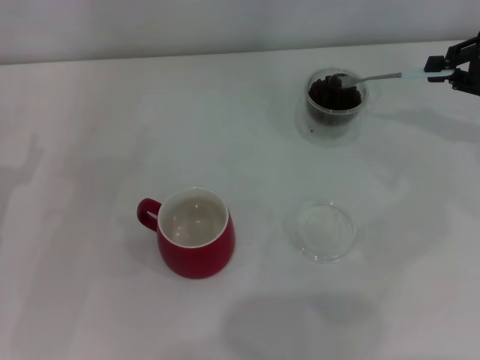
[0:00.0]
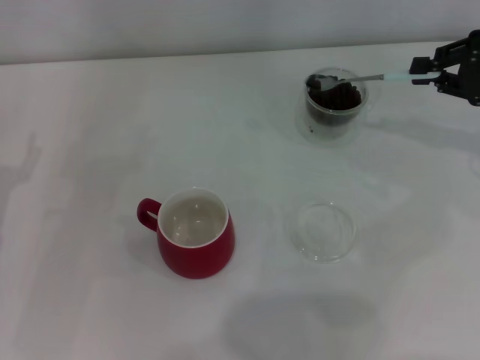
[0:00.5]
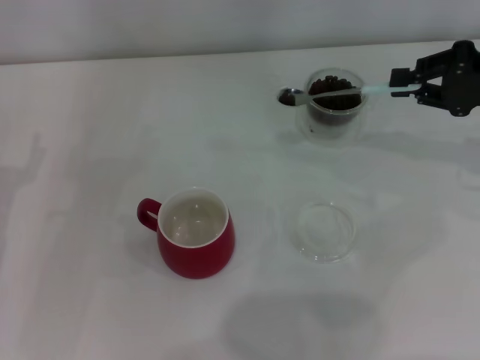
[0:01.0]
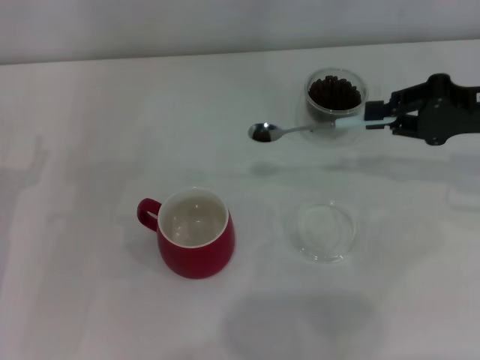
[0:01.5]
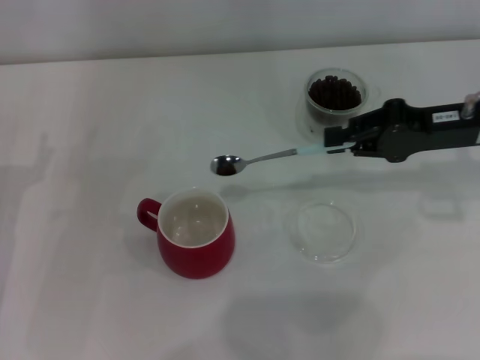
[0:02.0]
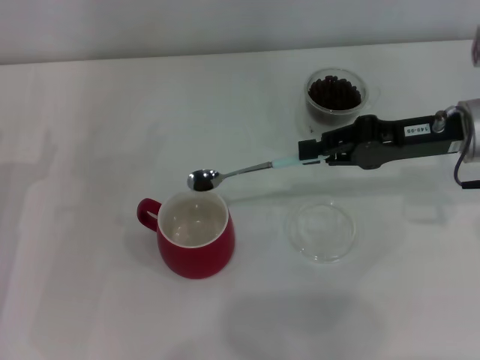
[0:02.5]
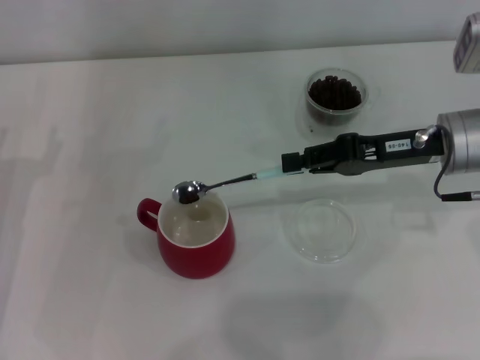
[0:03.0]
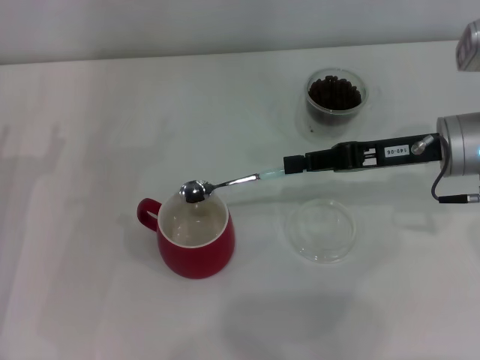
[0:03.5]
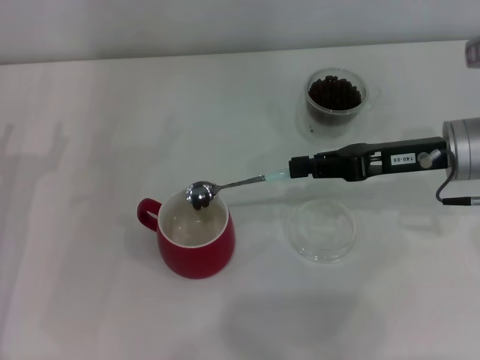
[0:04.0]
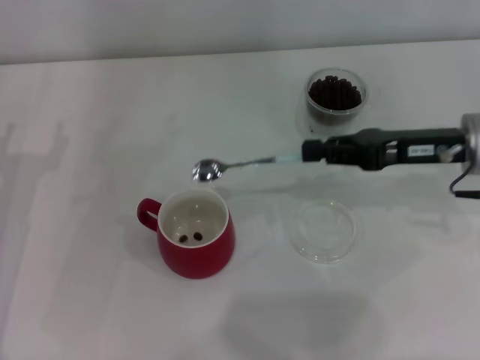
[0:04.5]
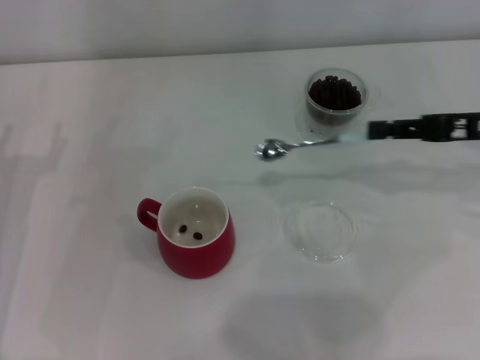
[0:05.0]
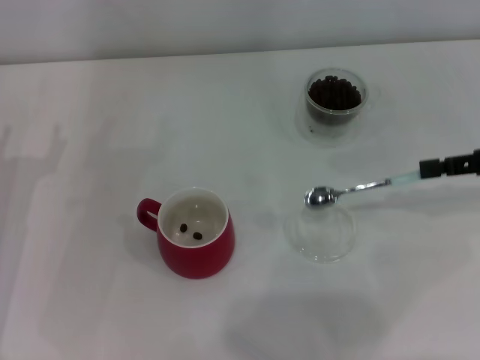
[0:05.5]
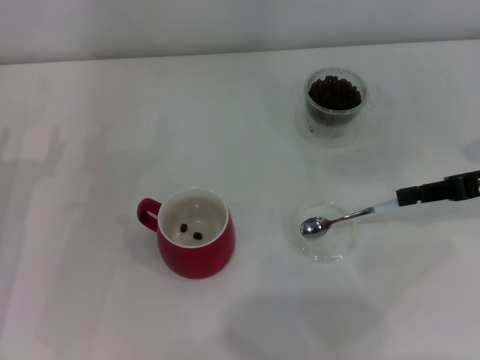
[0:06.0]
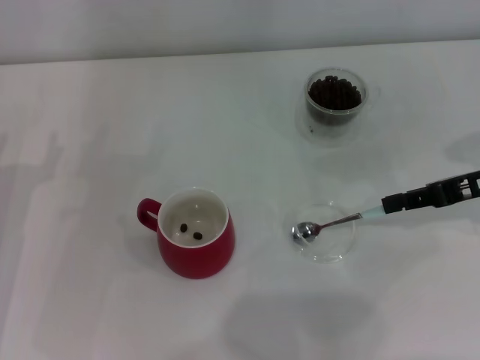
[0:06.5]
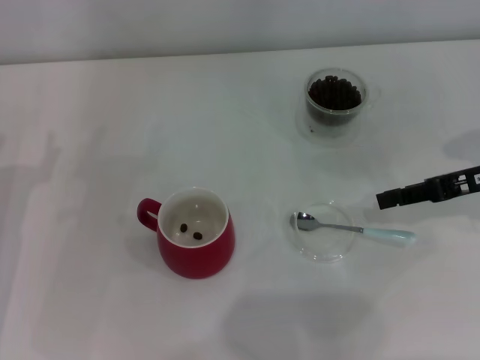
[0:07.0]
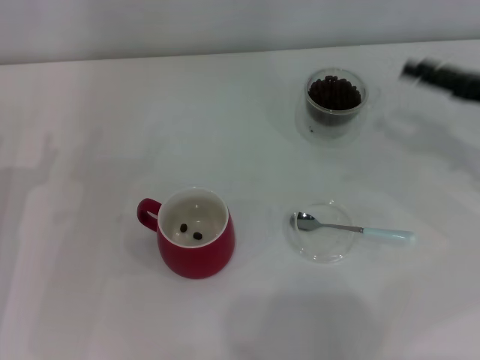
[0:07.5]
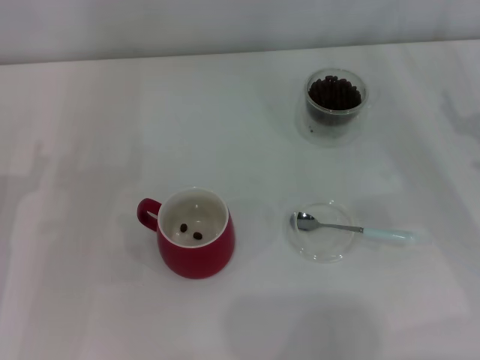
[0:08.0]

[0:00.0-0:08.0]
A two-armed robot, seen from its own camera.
Task of the whole recording: Use a blue spoon to take out the coffee beans from the glass and pour them into the red cup.
Step, 0:00.0 to 0:04.0: Scoop a spoonful of beans into the cup with the right gripper.
Step, 0:04.5 to 0:06.5: Place the spoon back in its original place with the right gripper.
0:00.0 to 0:02.0: The right gripper goes roughly 10 cm to the left.
0:04.0 to 0:06.0: The right gripper goes about 10 cm to the right.
0:06.0 to 0:08.0: The right gripper opens up.

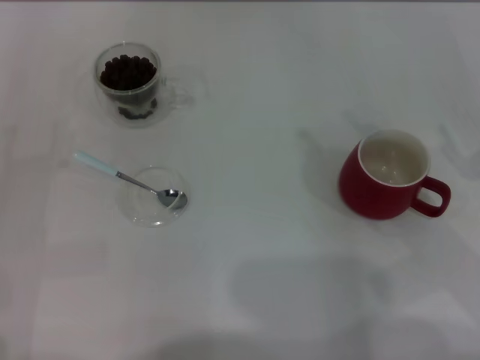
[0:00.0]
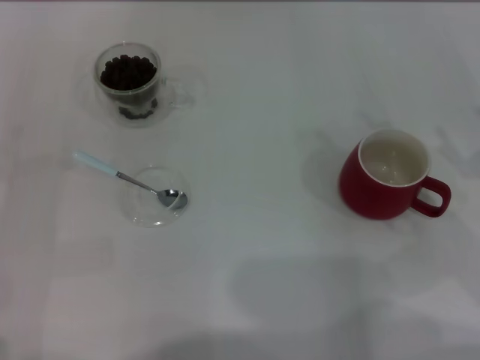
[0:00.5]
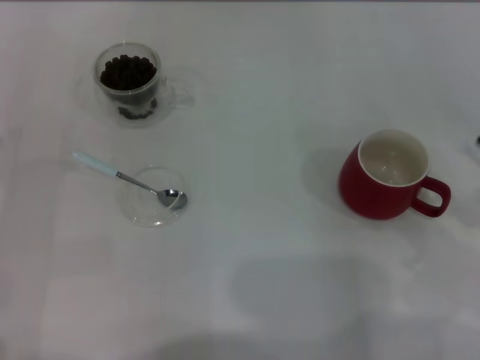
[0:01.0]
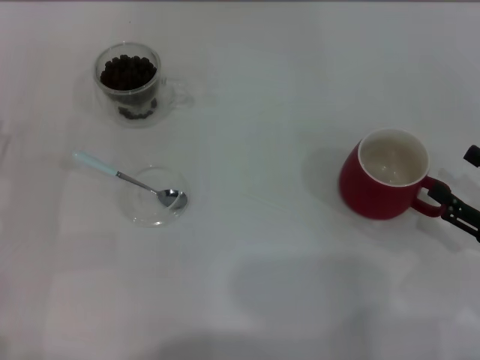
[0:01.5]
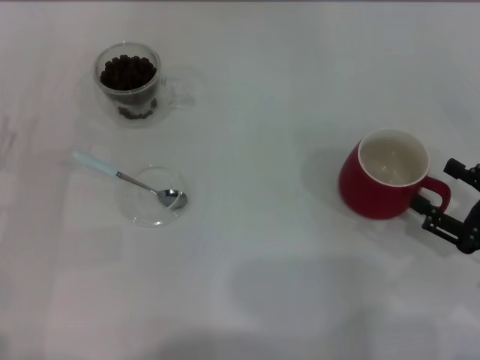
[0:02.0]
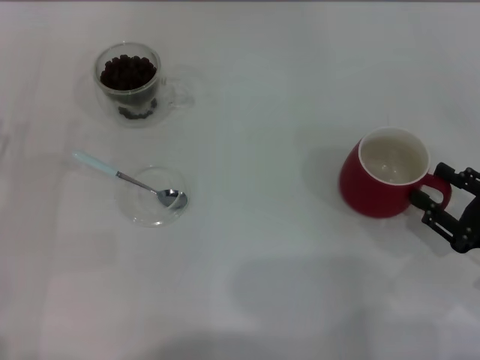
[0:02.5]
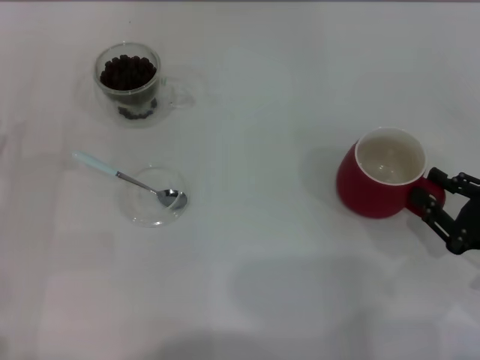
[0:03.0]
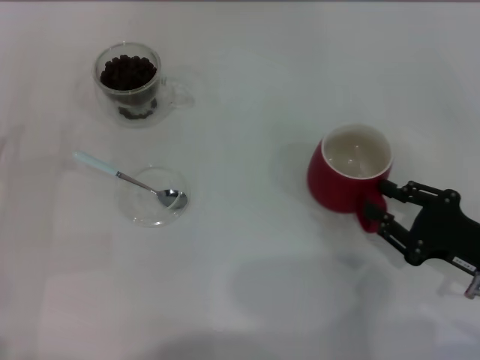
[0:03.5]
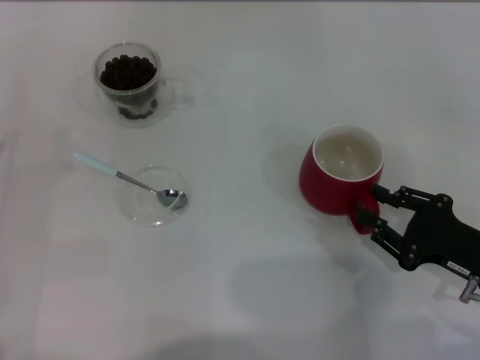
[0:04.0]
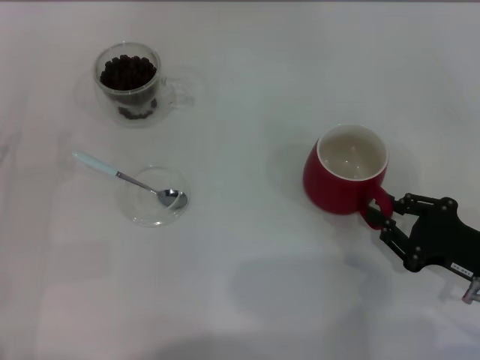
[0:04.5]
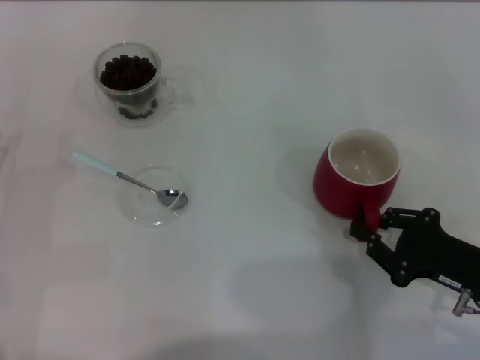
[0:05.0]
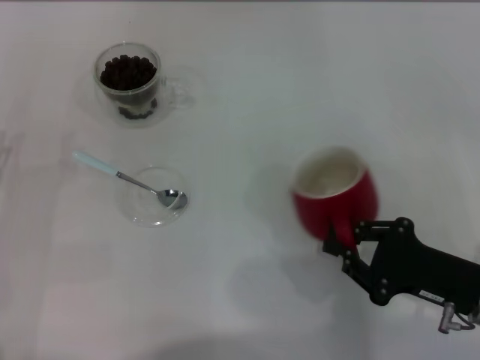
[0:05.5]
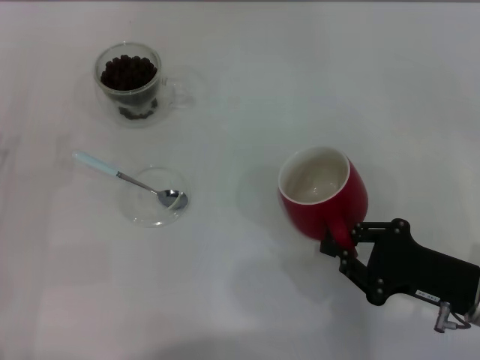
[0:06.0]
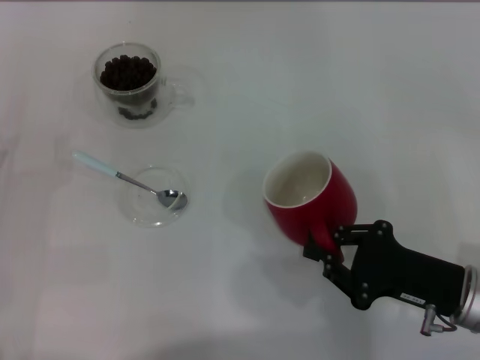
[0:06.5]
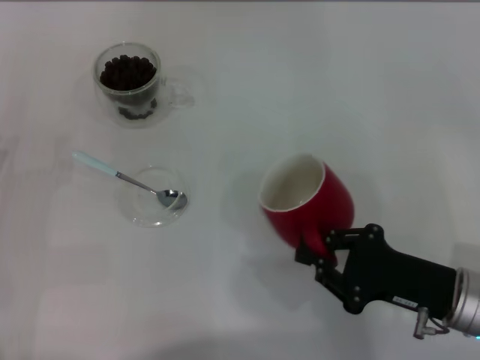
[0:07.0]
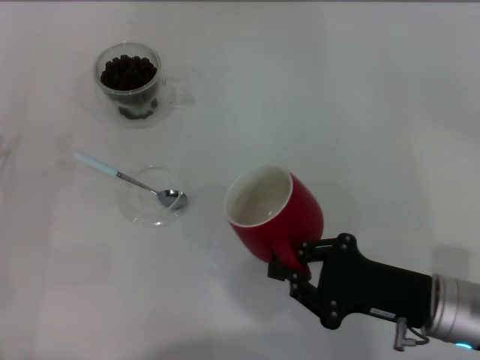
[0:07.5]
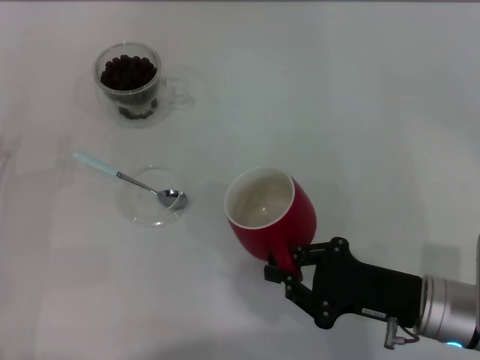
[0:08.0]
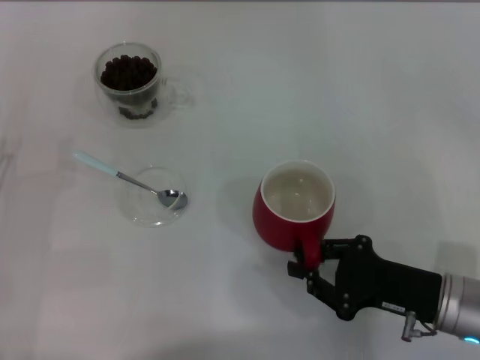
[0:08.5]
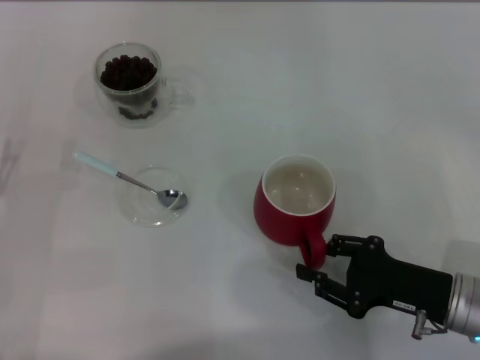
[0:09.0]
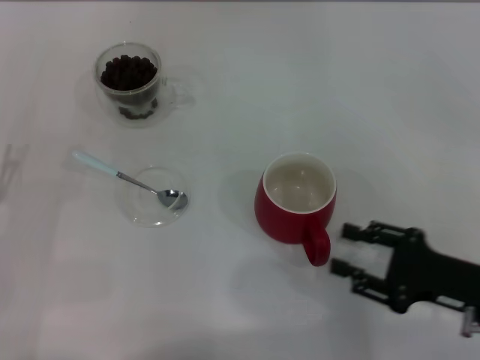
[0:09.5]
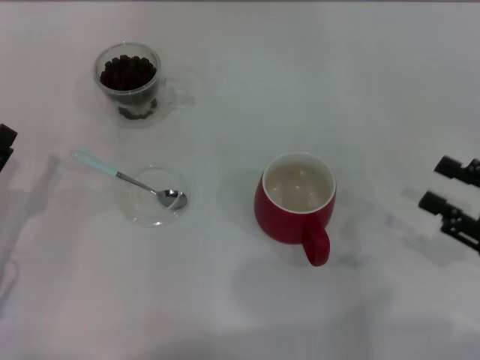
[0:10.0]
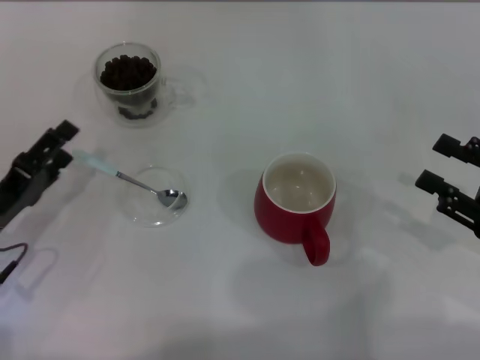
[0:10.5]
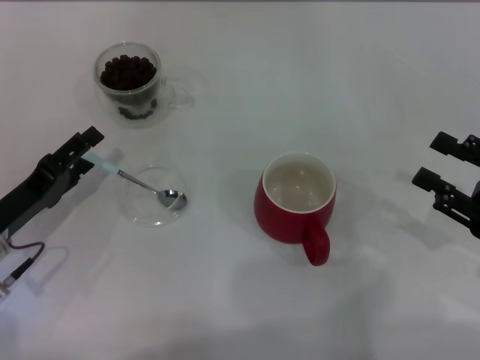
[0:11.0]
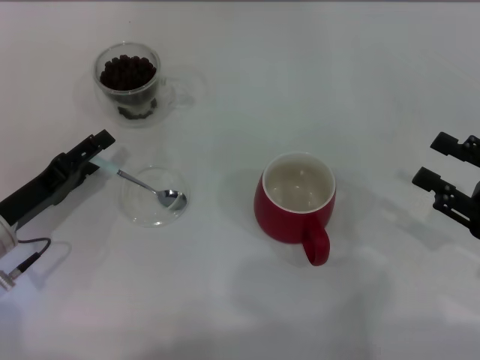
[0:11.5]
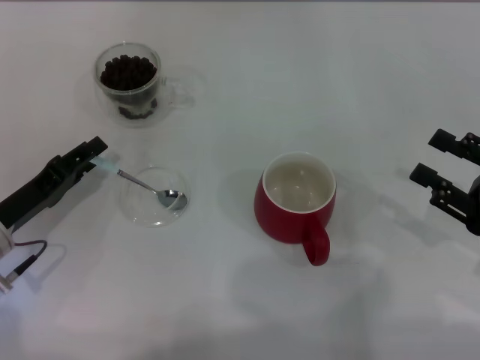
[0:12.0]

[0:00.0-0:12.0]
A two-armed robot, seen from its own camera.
Task of the whole recording: Use a blue spoon to take out the coffee beans from the glass and pour them into the red cup.
Step, 0:00.0 to 0:09.5: Move the cup to the center of view with the left gripper.
0:00.0 to 0:02.0: The right gripper moves downward, some 5 cm.
0:02.0 to 0:04.0: The right gripper closes its fingers.
0:04.0 to 0:06.0: The grippers make only small movements.
0:06.0 to 0:08.0: The grippers make only small movements.
0:08.0 to 0:10.0: The right gripper is displaced to the right by approximately 15 cm, and opens its fingers.
0:10.0 to 0:12.0: The left gripper moves forward, about 5 cm.

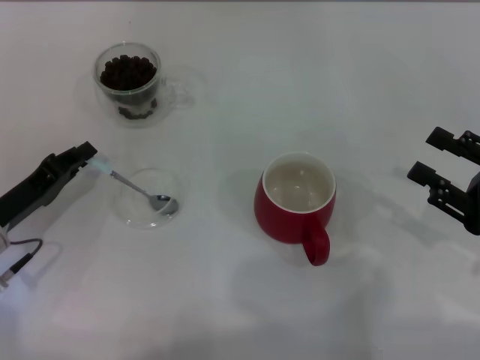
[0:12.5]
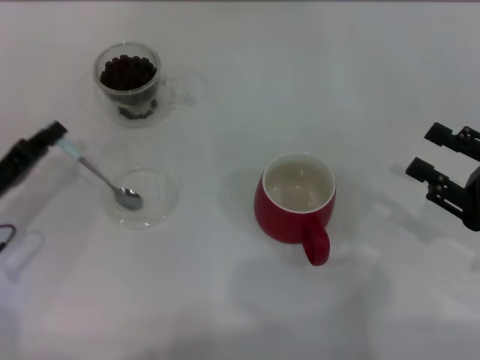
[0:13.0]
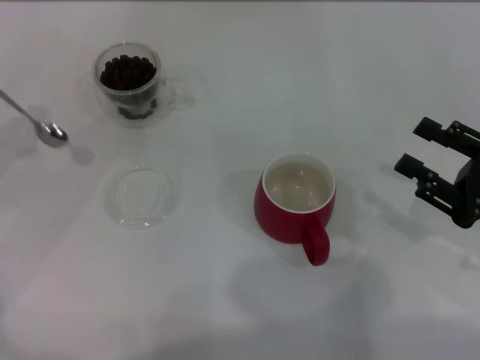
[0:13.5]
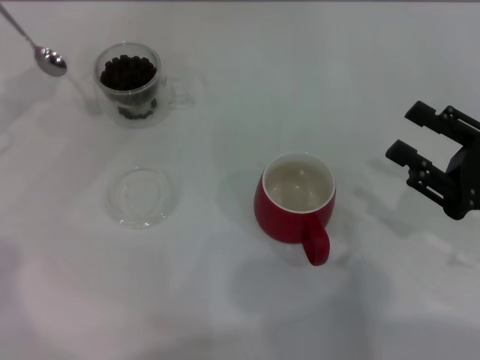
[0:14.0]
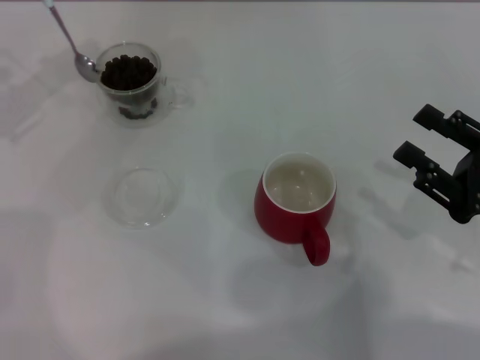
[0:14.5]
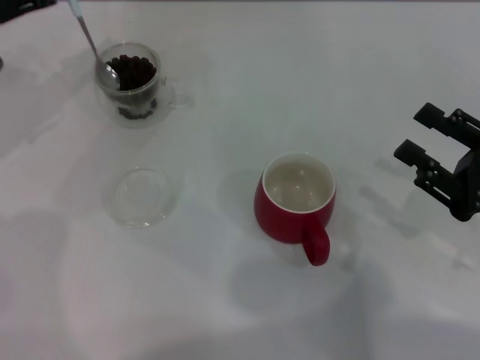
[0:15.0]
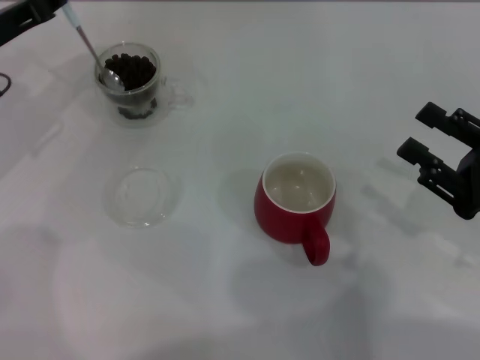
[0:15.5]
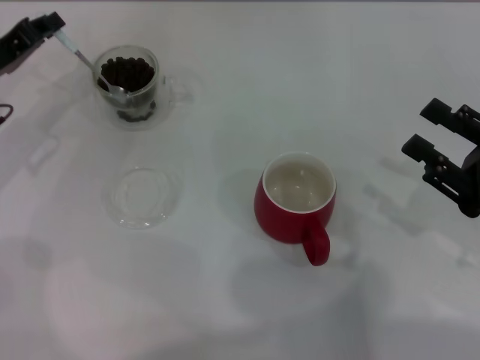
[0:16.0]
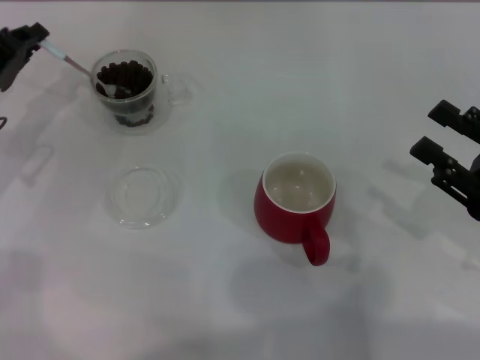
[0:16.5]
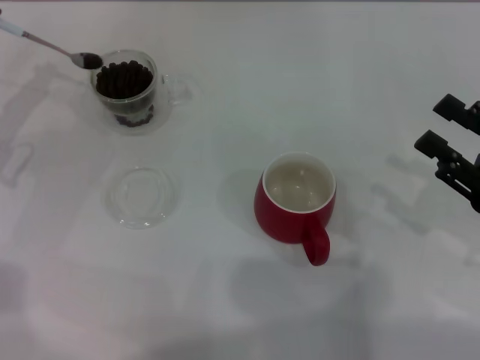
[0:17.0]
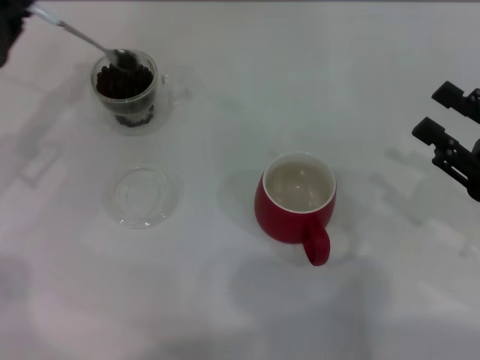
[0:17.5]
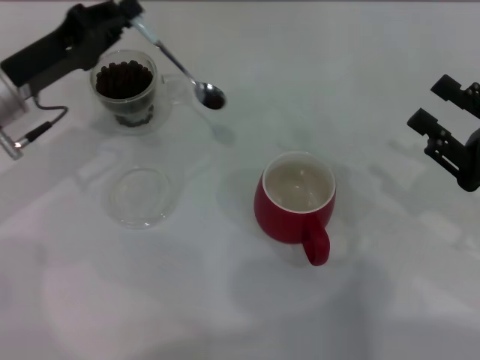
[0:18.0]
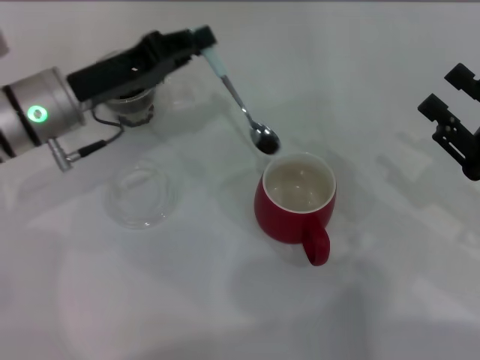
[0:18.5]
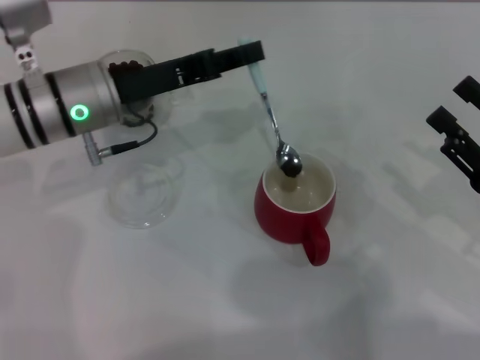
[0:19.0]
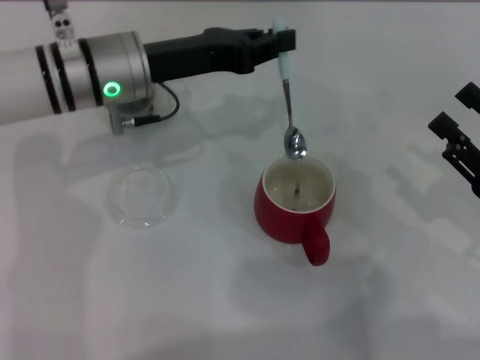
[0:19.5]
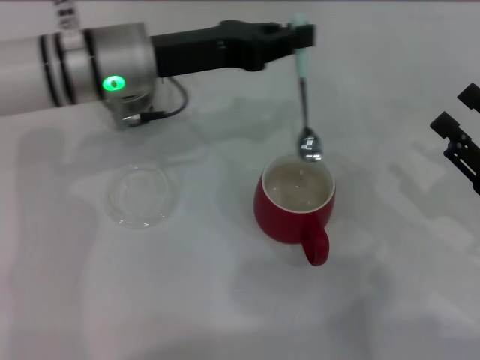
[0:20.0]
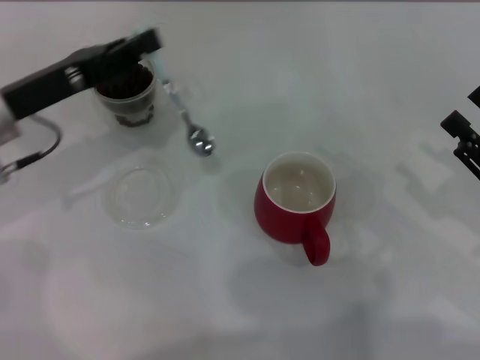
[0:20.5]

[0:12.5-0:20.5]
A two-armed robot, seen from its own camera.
Task of the whole recording: Use a blue spoon to take out the coffee beans from the glass and pour them into the red cup.
Step, 0:13.5 to 0:19.0: Scoop a spoonful of beans into the cup with the right gripper.
0:12.5 to 0:14.5: The left gripper shifts about 20 cm forward and upward.
0:14.5 to 0:16.5: The left gripper moves downward, about 10 cm.
0:16.5 to 0:18.5: The left gripper travels to the right by about 10 cm.
0:18.5 to 0:20.5: The left gripper is displaced to the left by about 5 cm.
